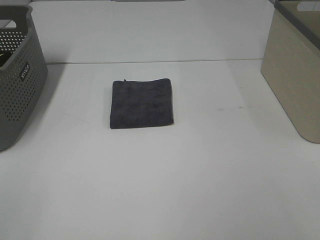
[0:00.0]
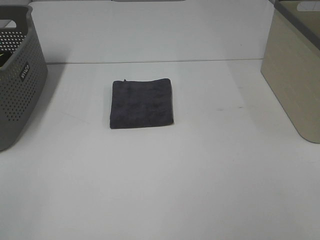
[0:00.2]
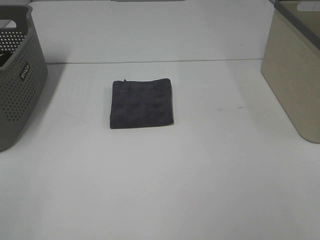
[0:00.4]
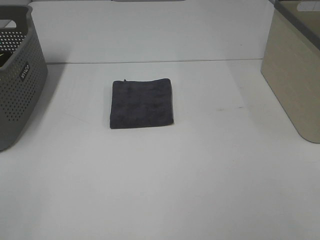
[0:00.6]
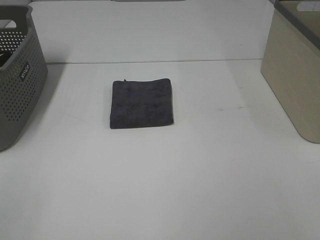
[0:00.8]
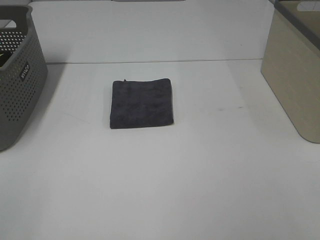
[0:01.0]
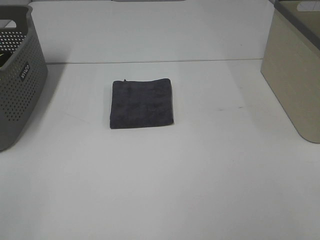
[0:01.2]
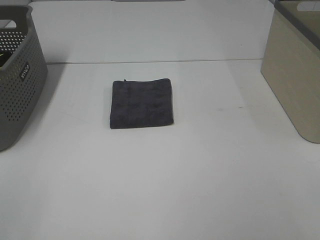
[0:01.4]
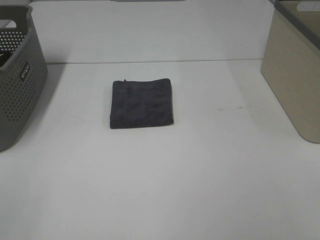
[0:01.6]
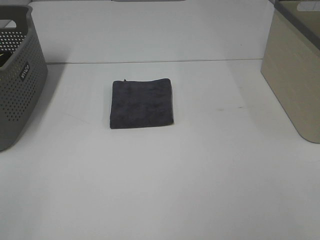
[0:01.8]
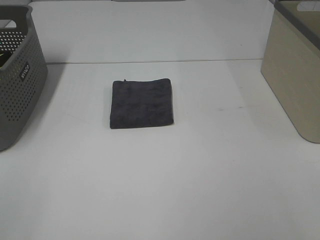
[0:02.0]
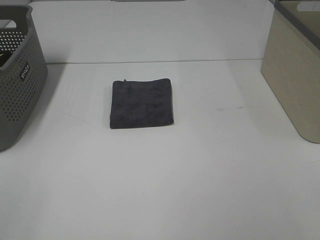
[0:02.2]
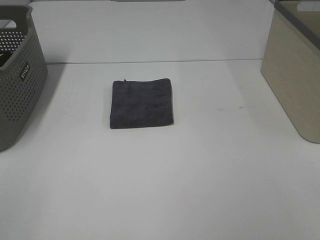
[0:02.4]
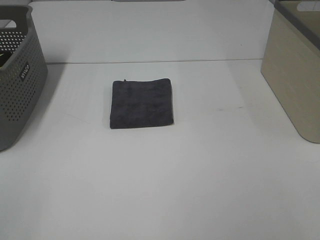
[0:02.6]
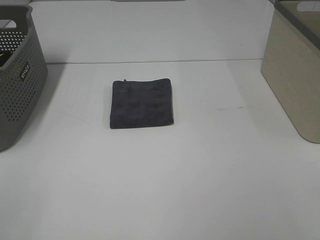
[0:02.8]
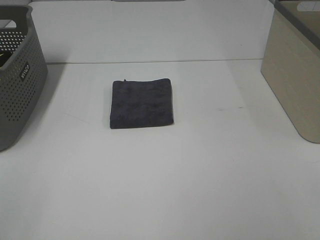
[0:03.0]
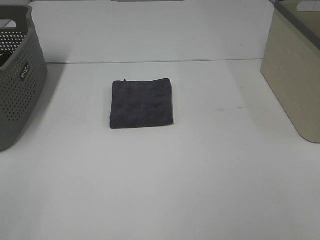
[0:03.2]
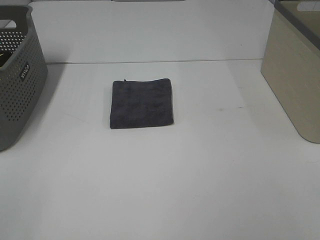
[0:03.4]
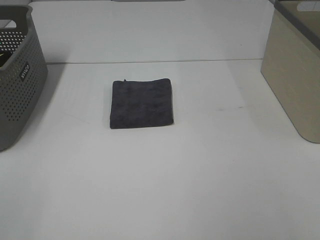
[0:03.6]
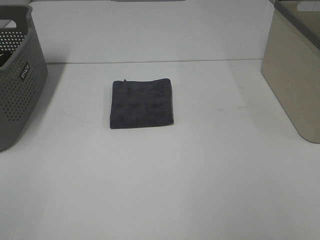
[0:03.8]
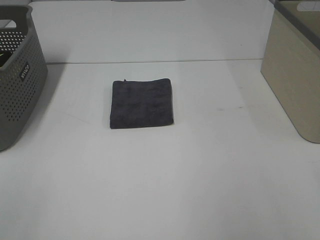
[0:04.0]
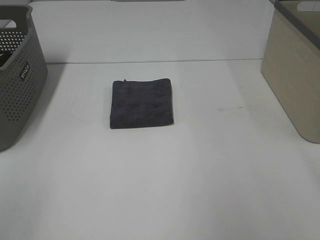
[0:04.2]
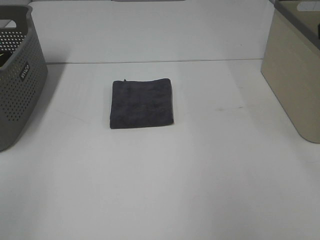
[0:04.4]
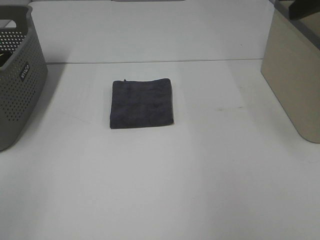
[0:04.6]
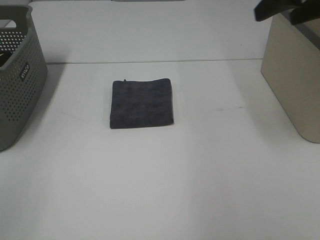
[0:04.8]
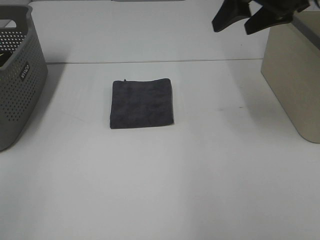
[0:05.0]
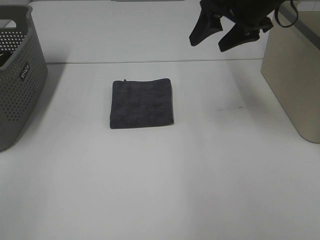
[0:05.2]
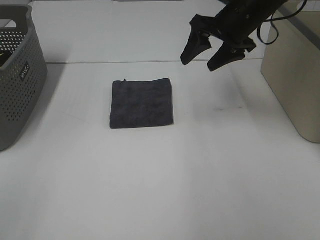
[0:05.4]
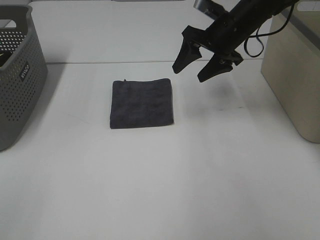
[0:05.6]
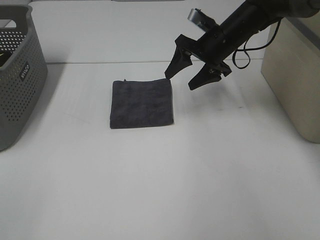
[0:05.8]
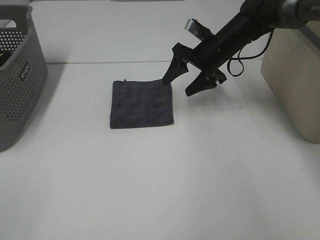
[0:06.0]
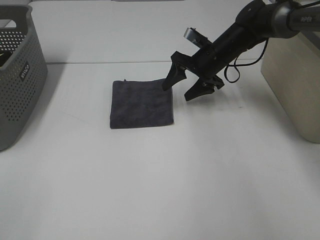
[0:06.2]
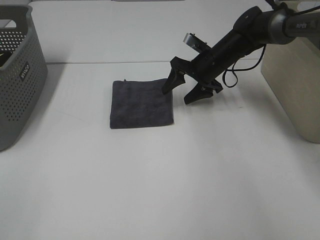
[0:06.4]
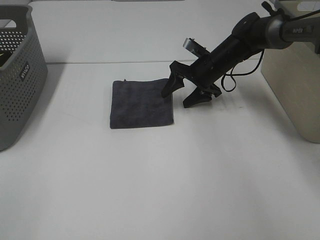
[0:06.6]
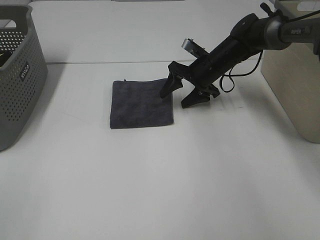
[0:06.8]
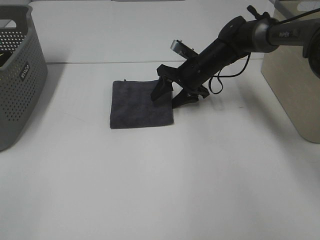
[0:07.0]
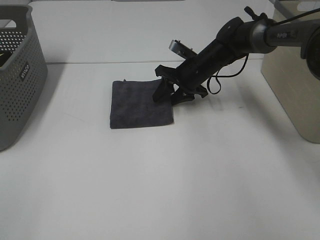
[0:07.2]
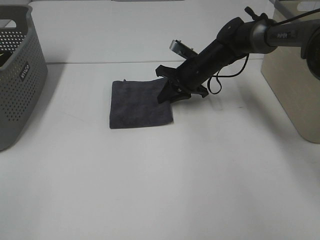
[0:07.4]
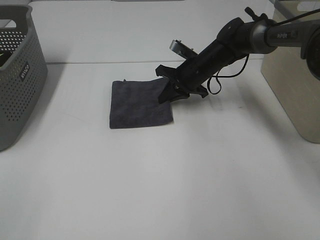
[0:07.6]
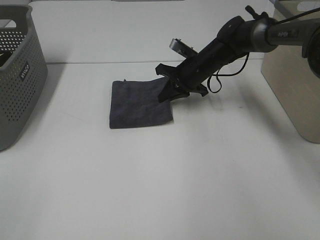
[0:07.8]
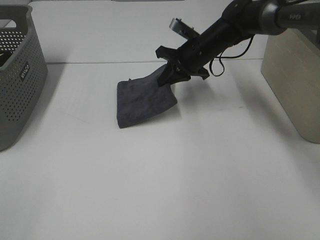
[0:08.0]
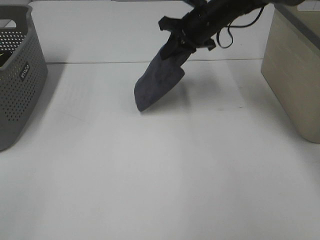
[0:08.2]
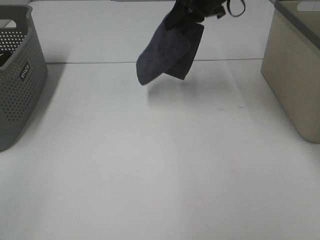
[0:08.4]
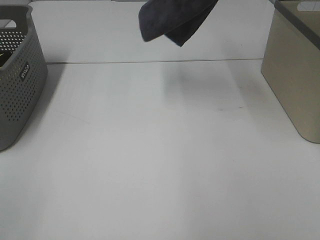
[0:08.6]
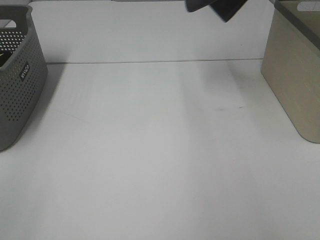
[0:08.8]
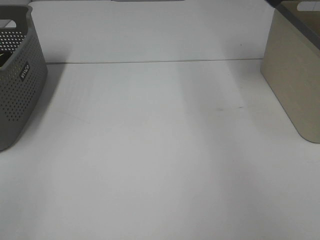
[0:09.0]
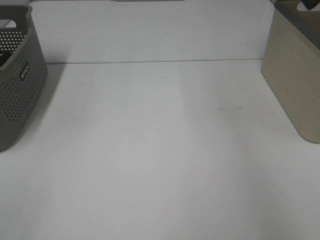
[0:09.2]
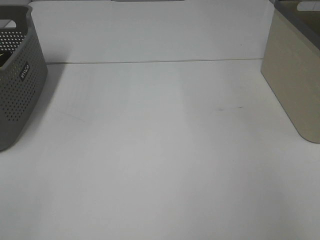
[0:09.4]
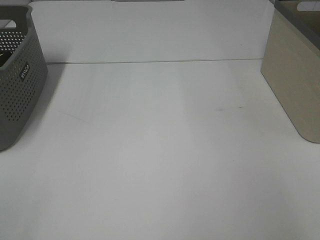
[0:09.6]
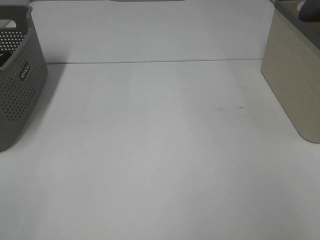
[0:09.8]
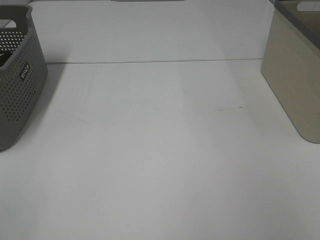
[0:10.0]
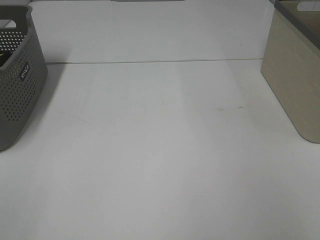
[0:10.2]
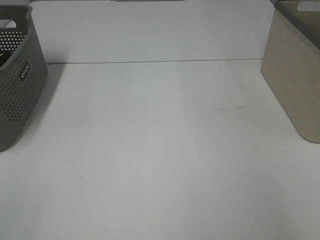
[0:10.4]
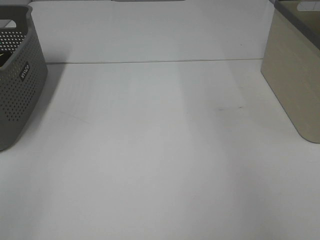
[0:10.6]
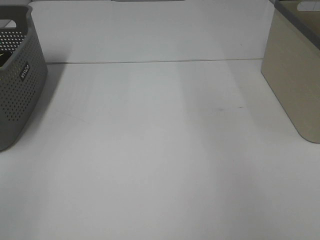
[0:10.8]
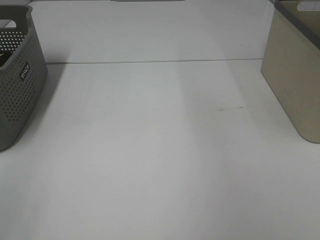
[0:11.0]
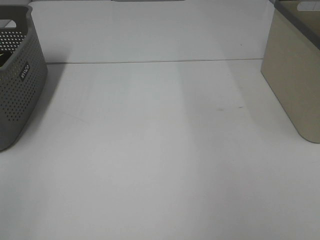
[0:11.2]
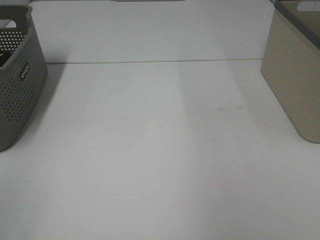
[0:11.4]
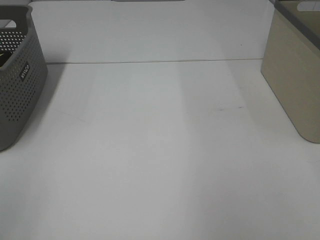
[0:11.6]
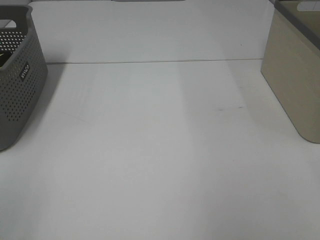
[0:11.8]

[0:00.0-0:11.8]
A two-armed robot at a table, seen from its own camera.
Step, 0:00.0 to 0:07.6: Right hand: grab the folded grey towel.
Step, 0:07.8 to 0:10.0: Right hand: place the grey towel in right basket.
0:00.0 to 0:03.0: Neither gripper changes place.
0:04.4 to 0:06.0: The right gripper travels forward, downward and to the left by approximately 35 cm.
0:06.0 to 0:07.4: The right gripper ends up about 5 cm from where it was, and closes.
0:07.4 to 0:08.8: The right gripper travels upward by about 30 cm.
0:08.8 to 0:10.4: The right gripper is displaced to the right by approximately 15 cm, and opens its fingers.

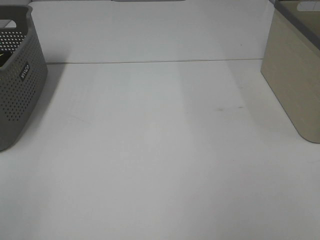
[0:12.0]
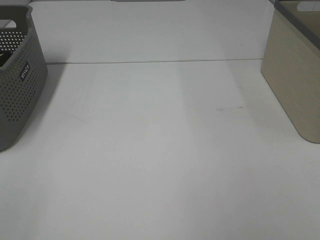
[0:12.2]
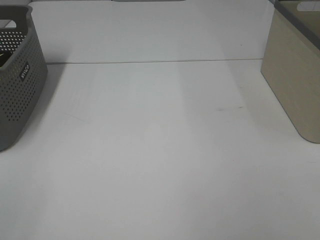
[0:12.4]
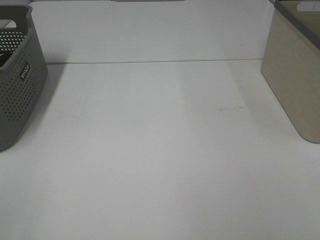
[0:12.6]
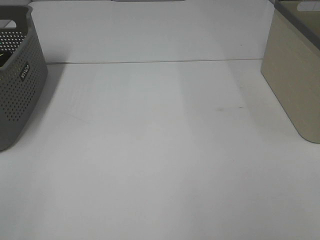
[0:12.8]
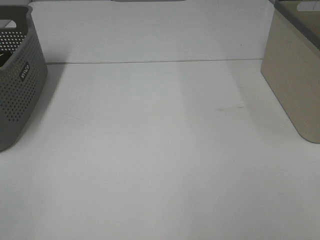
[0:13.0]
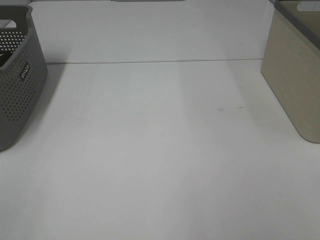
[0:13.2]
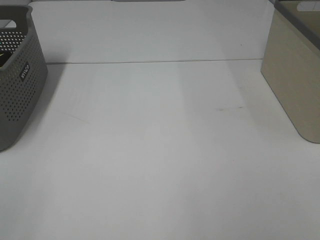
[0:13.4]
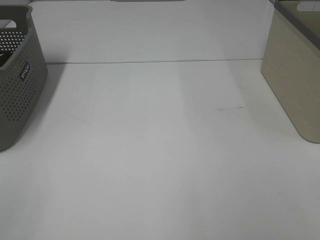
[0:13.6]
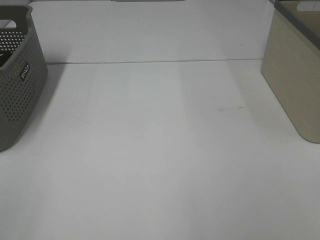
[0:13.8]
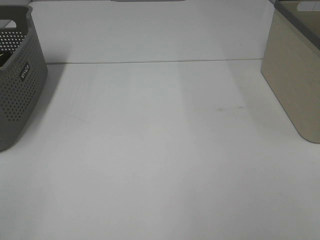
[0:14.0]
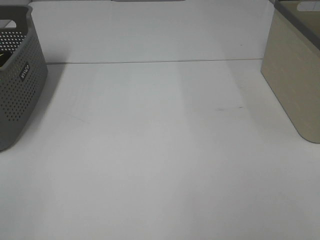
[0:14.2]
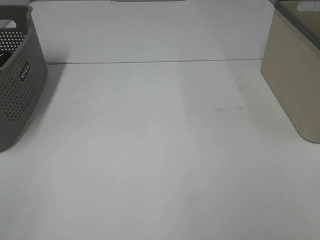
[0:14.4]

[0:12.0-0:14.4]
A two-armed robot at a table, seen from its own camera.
0:13.2 to 0:14.4: Both grippers stay about where they are.

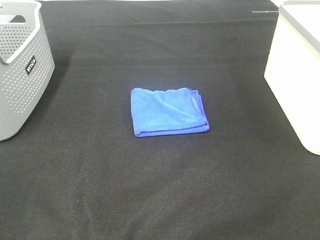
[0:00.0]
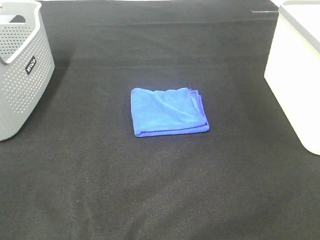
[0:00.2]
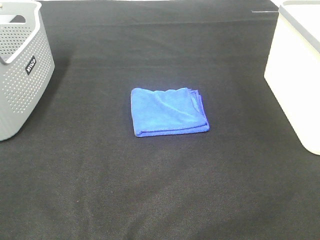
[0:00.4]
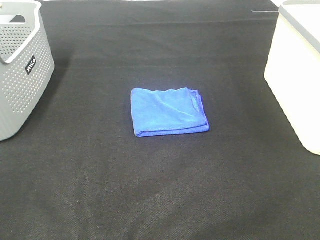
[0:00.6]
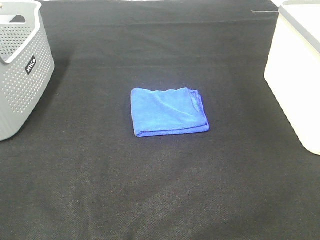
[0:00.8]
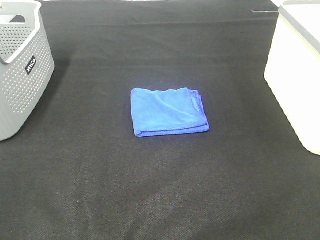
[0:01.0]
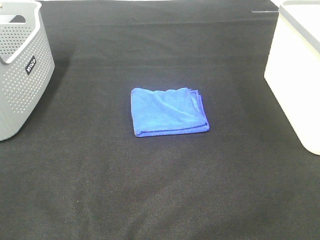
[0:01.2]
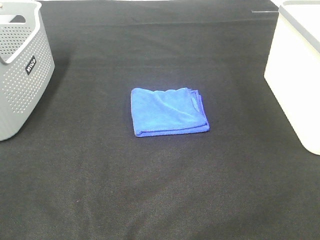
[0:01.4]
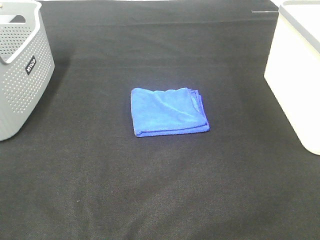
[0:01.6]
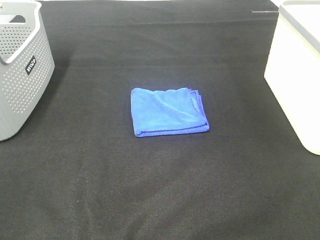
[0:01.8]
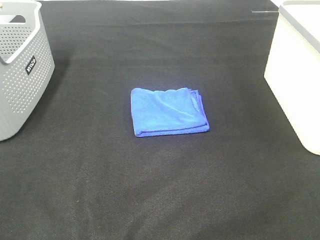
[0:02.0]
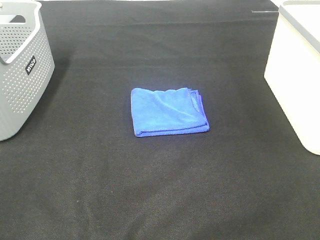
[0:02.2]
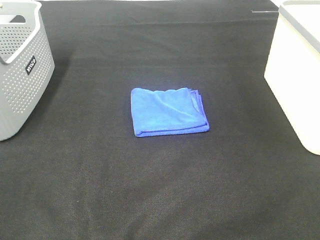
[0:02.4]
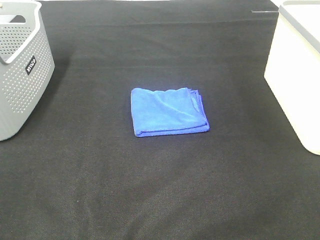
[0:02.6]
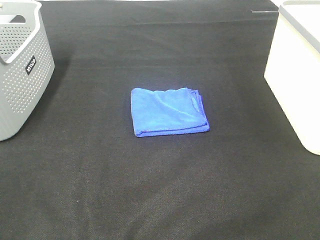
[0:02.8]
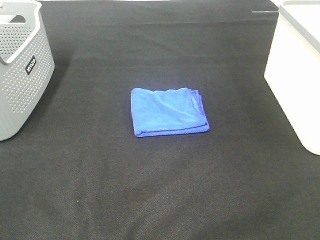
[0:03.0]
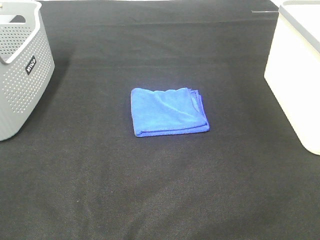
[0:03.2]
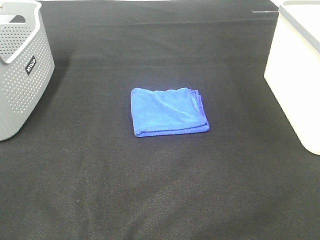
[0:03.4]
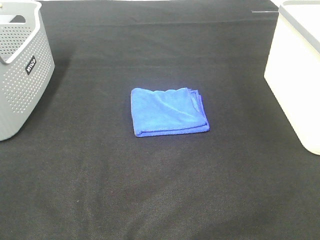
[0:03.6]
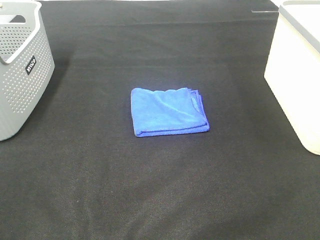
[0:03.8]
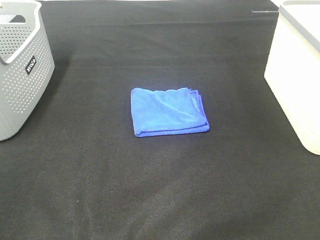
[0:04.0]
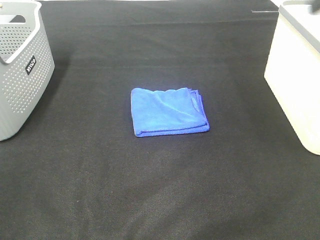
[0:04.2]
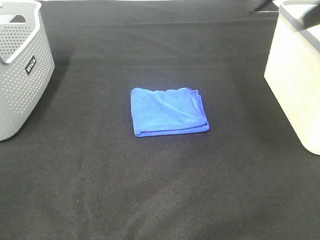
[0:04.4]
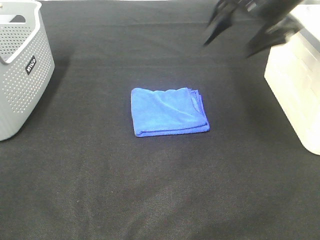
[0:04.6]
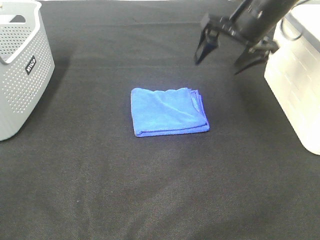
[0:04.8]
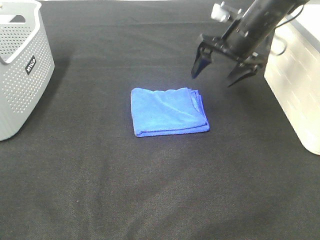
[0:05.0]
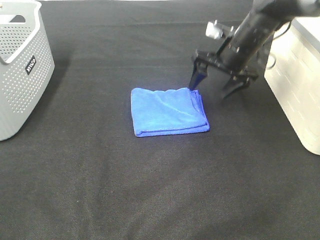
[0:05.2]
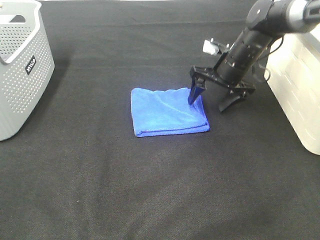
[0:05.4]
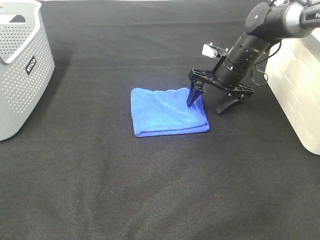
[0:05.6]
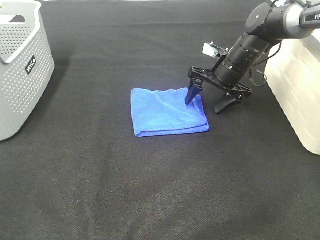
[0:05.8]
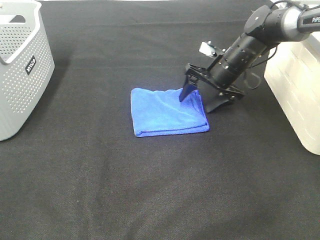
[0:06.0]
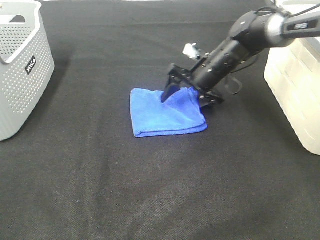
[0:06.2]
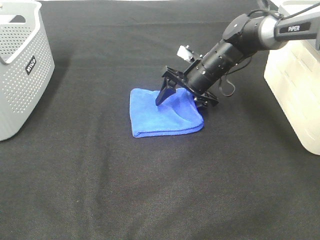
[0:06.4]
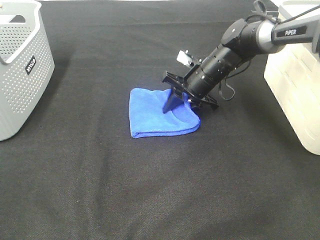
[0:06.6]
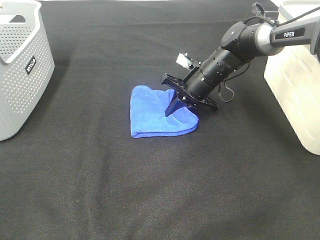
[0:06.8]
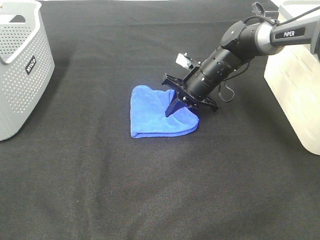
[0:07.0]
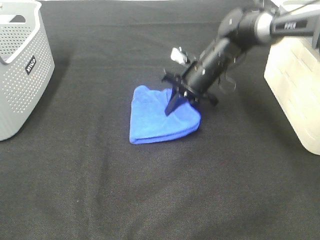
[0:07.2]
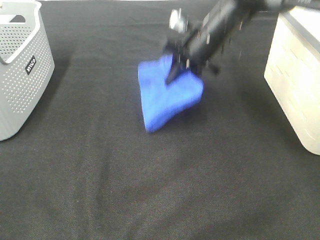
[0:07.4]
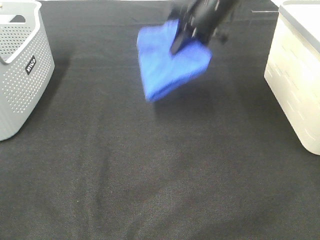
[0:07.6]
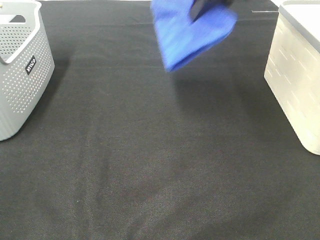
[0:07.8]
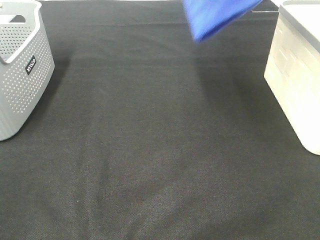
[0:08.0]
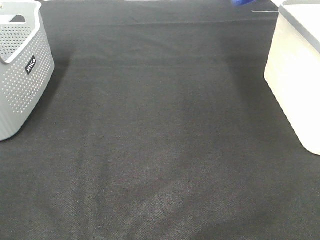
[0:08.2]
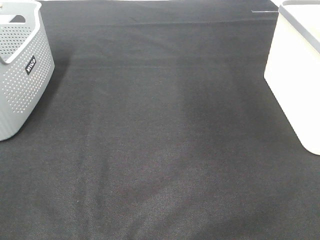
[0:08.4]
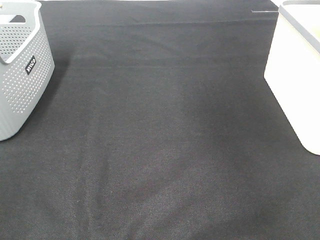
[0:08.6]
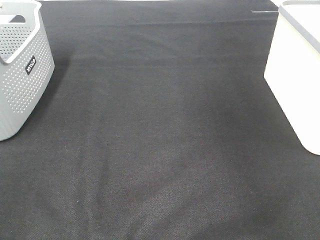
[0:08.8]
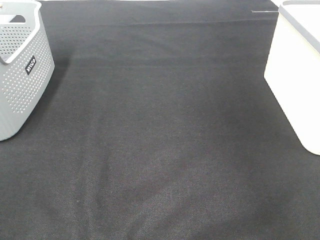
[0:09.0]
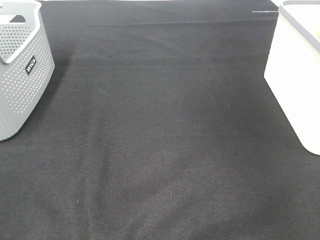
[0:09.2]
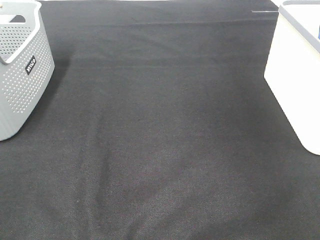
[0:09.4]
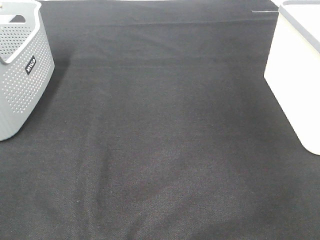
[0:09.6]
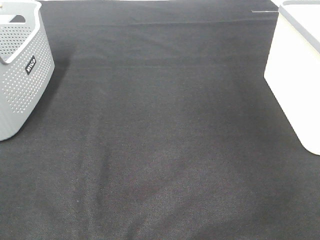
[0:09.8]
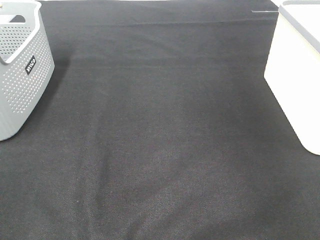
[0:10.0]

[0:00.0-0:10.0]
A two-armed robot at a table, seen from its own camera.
Step, 0:00.0 to 0:06.8: Right hand: grab the folded blue towel.
Step, 0:07.0 to 0:09.8: Right hand: place the blue towel in right basket.
0:00.0 to 0:02.8: Both grippers stay put.
0:04.2 to 0:05.8: The right gripper heads downward and forward, covering approximately 35 cm.
0:05.8 to 0:07.2: The right gripper heads to the left, covering roughly 5 cm, and closes its fingers.
0:07.2 to 0:08.6: The right gripper moves upward and to the right, roughly 40 cm.
